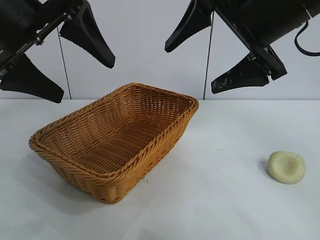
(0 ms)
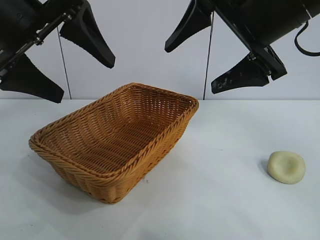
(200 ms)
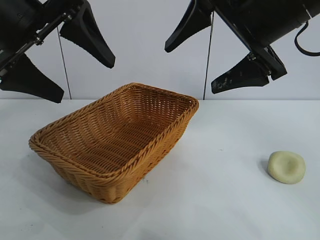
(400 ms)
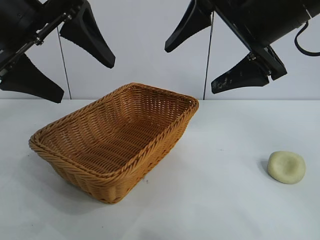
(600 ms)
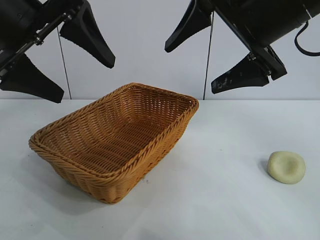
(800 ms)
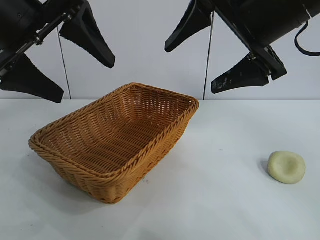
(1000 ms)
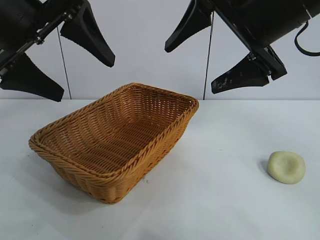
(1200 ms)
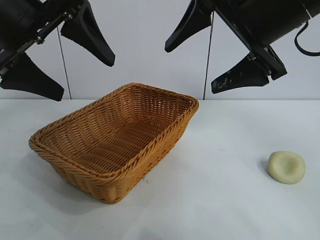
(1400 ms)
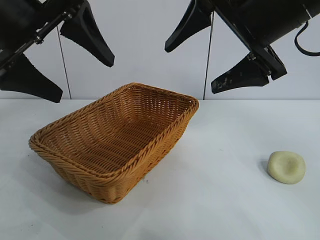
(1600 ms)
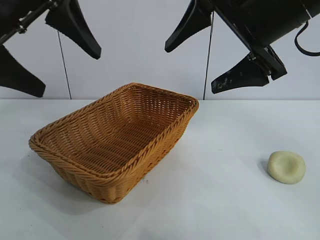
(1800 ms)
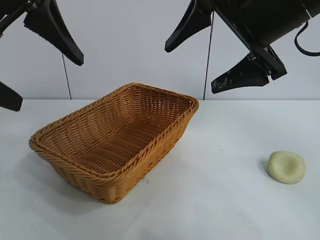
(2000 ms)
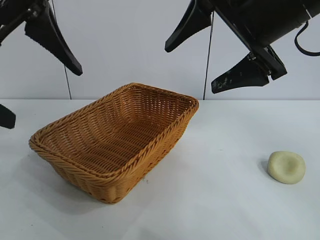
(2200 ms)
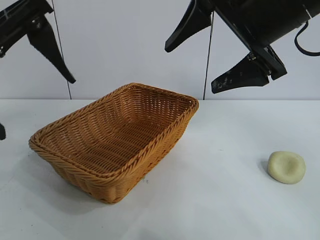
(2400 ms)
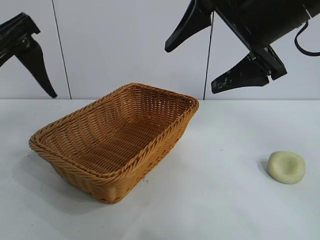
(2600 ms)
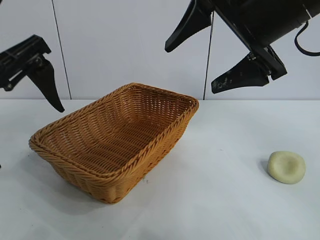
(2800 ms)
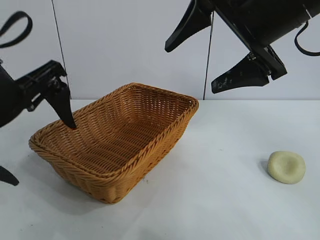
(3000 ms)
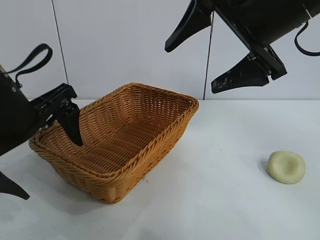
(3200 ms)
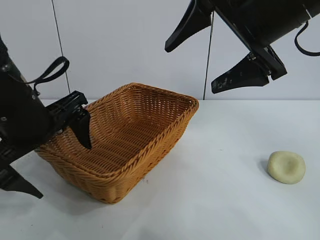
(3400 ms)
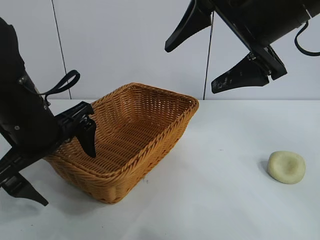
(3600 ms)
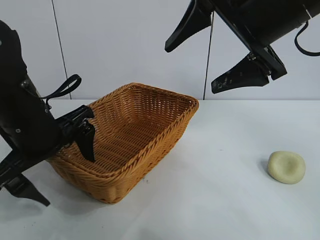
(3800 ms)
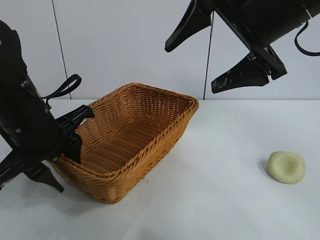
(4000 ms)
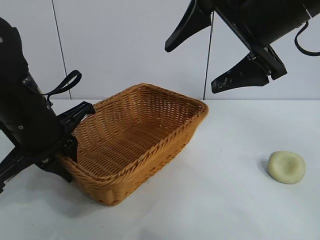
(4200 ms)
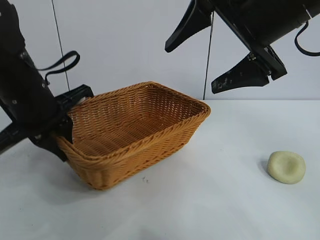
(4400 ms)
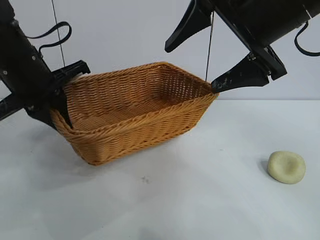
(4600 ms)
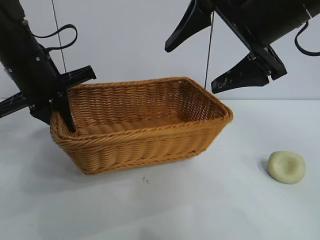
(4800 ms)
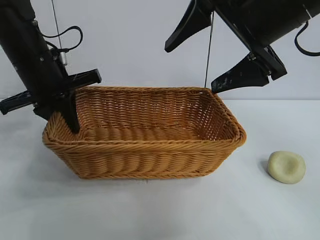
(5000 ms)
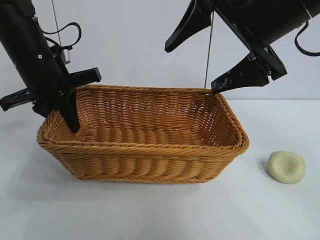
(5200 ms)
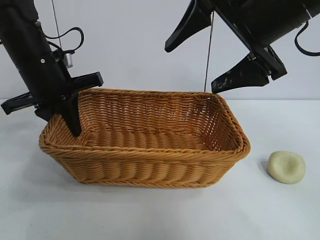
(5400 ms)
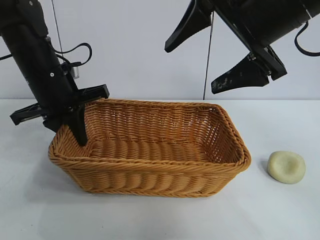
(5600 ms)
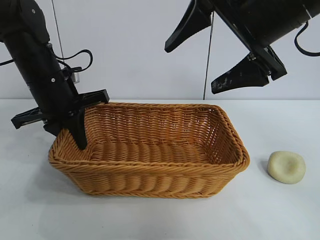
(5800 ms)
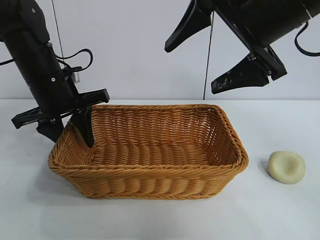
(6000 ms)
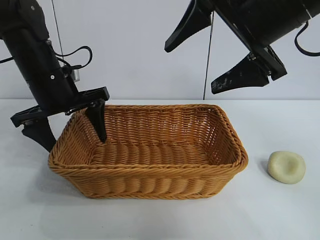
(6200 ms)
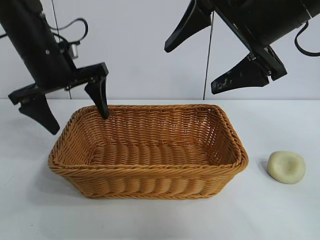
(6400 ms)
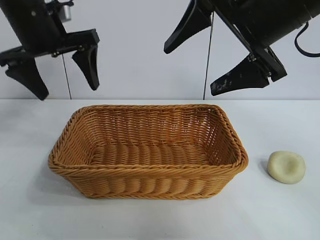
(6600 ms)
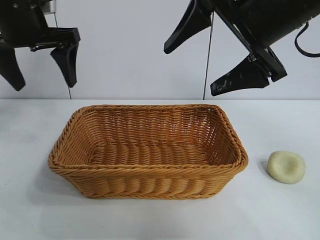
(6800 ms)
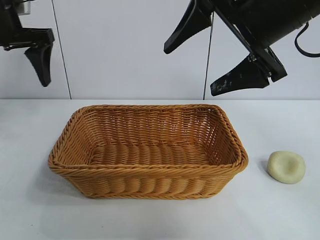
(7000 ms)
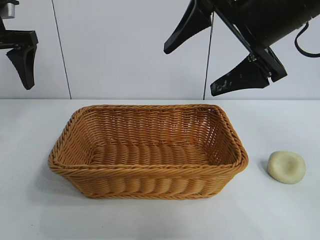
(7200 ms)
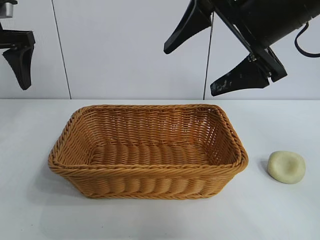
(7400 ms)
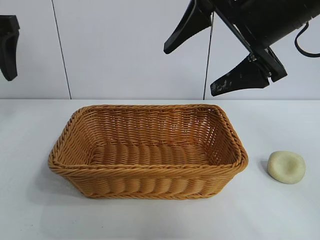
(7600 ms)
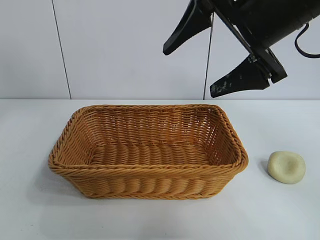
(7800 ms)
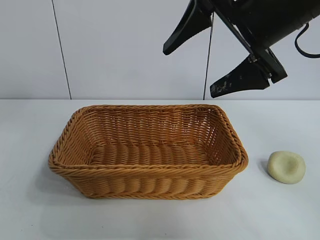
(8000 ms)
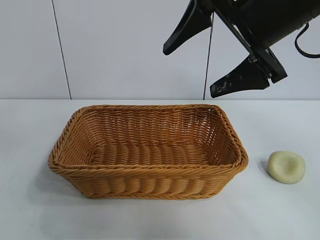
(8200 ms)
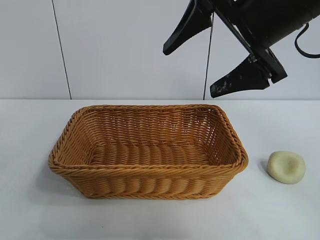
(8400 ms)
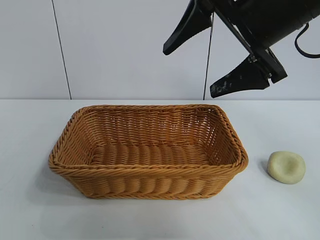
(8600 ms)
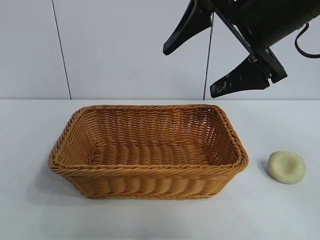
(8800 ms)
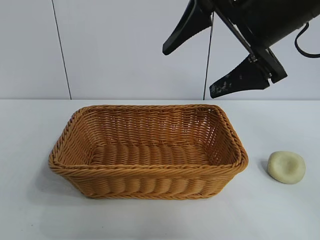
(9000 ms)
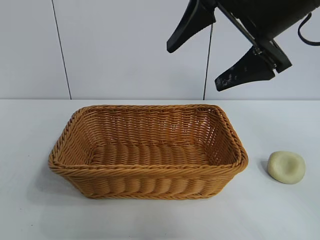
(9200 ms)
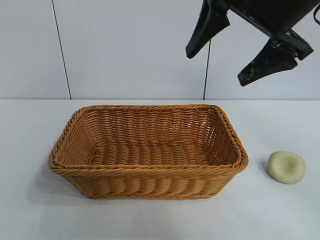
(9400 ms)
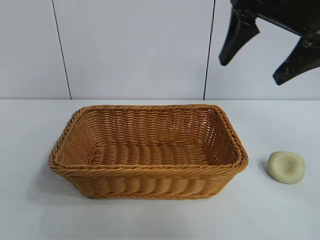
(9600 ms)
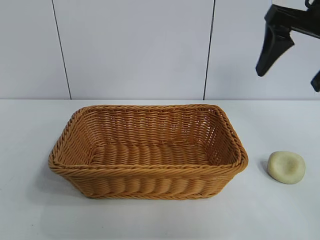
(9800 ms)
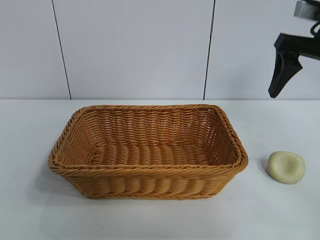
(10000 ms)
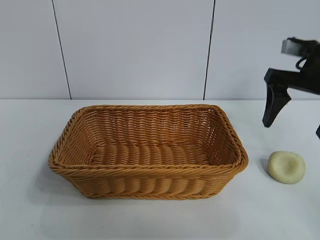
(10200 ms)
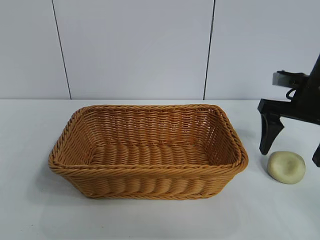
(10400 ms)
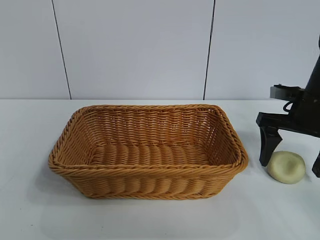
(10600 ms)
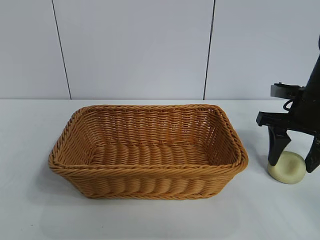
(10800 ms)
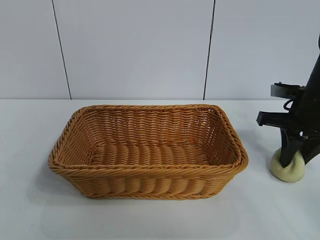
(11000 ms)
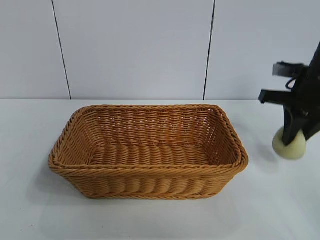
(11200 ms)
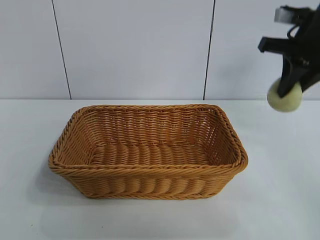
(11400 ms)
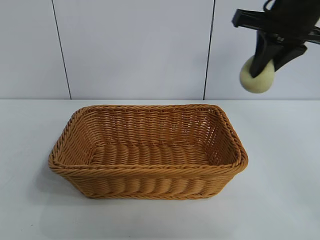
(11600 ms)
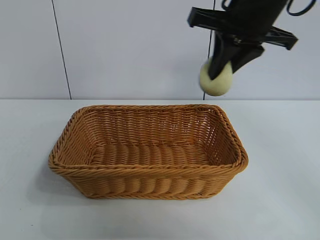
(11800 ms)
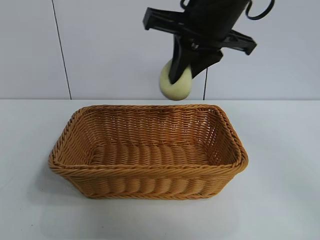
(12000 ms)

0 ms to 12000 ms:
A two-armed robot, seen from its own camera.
Task of the whole recording: pick up the egg yolk pastry and put it into the basket.
Step, 1200 ms to 4000 ms: Grasp the basket with left gripper.
Step, 4200 ms to 6000 ms: Place the basket in the center of view with left gripper.
Step, 6200 ms to 11000 ms: Grasp egg yolk pastry with right gripper.

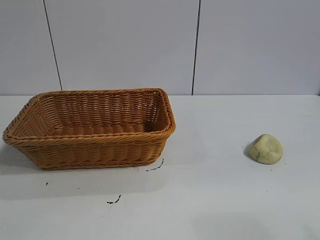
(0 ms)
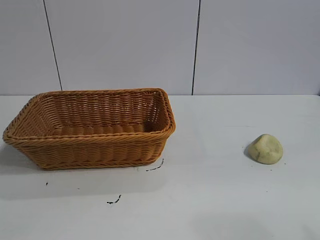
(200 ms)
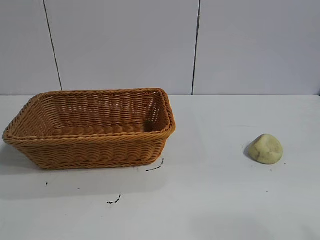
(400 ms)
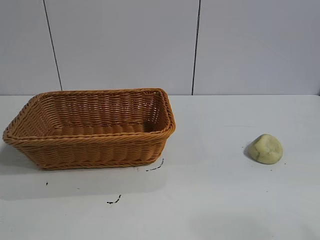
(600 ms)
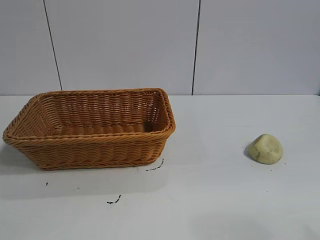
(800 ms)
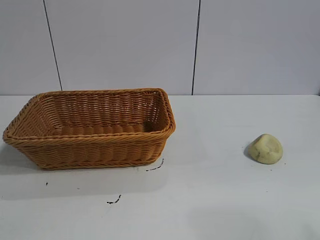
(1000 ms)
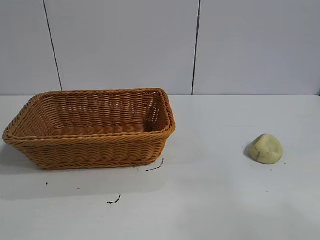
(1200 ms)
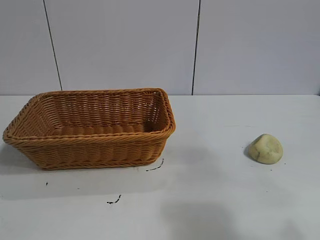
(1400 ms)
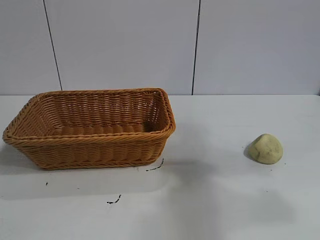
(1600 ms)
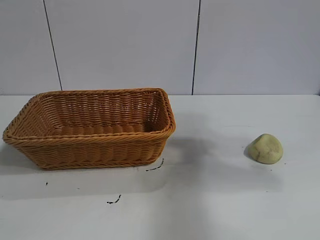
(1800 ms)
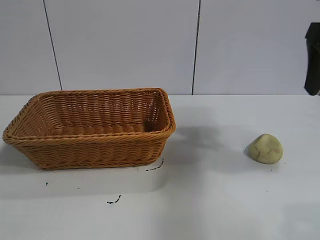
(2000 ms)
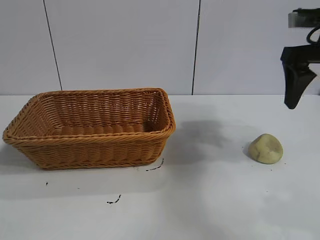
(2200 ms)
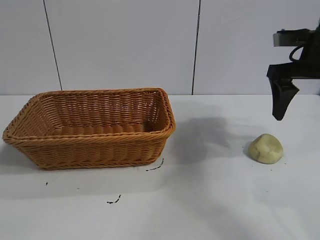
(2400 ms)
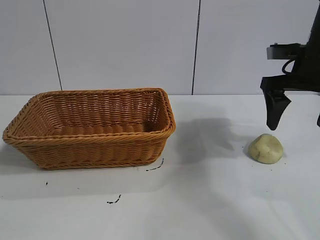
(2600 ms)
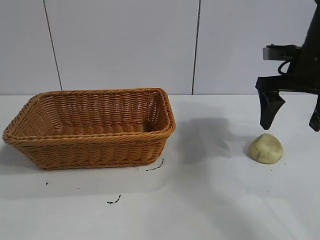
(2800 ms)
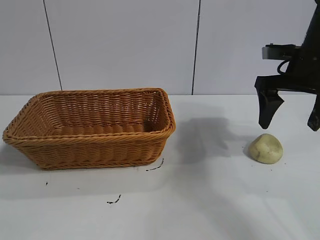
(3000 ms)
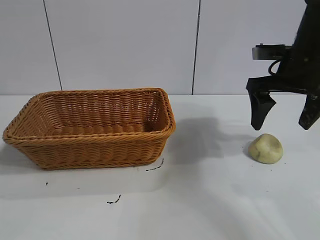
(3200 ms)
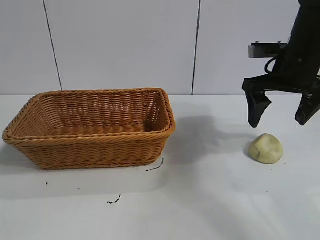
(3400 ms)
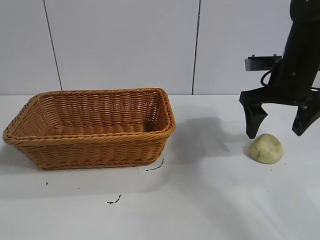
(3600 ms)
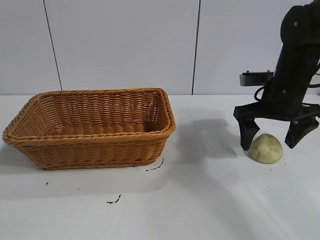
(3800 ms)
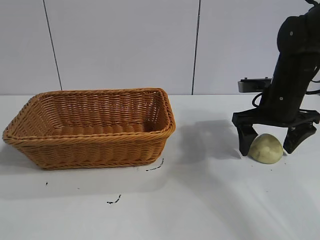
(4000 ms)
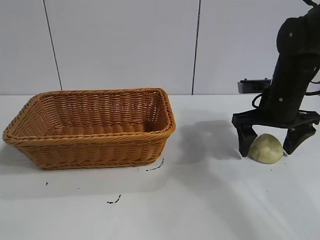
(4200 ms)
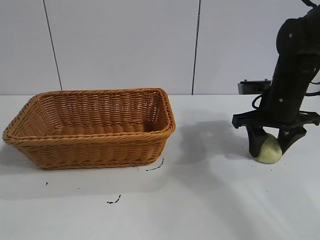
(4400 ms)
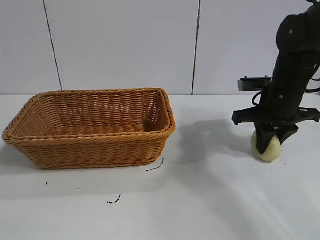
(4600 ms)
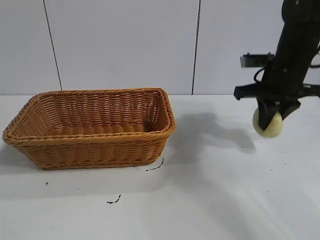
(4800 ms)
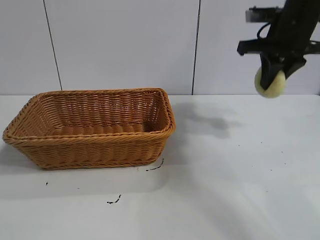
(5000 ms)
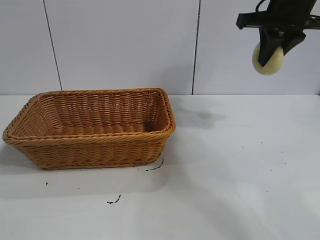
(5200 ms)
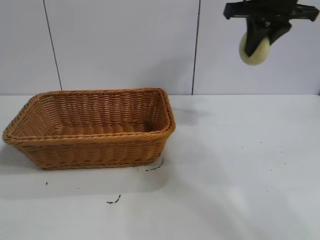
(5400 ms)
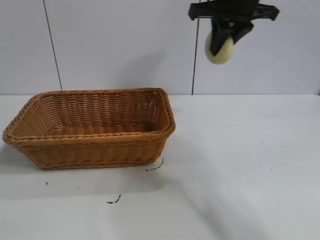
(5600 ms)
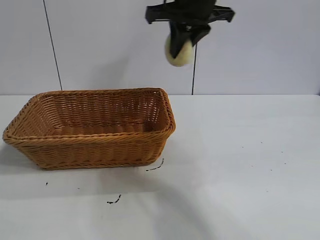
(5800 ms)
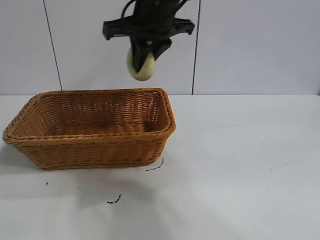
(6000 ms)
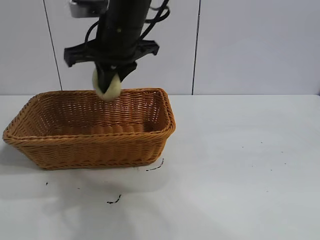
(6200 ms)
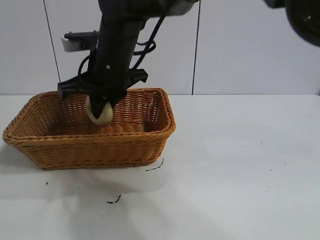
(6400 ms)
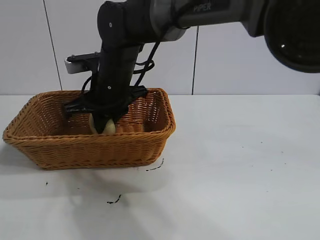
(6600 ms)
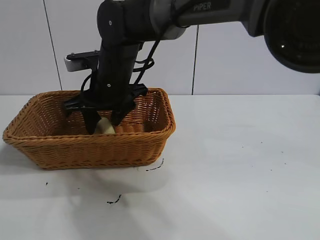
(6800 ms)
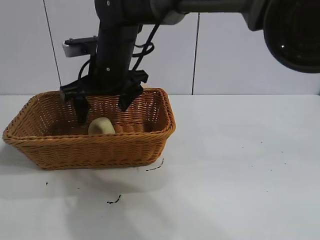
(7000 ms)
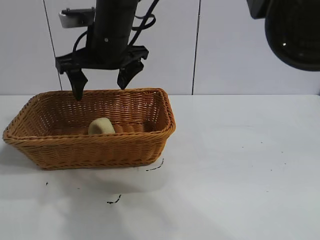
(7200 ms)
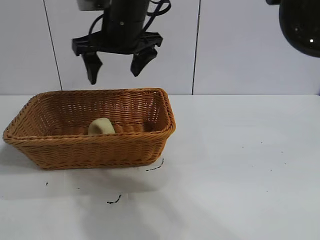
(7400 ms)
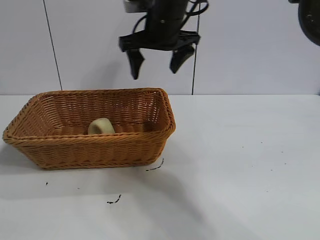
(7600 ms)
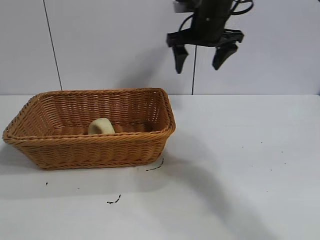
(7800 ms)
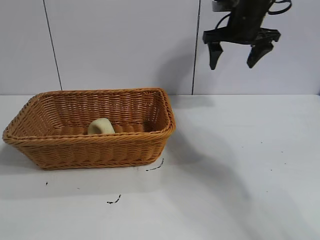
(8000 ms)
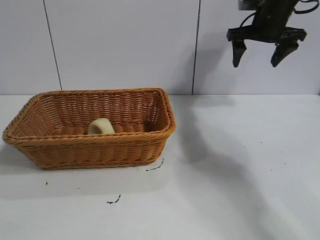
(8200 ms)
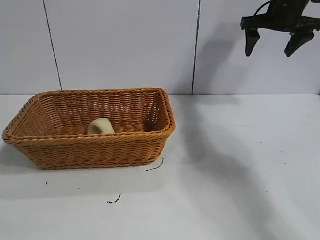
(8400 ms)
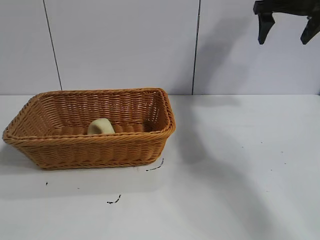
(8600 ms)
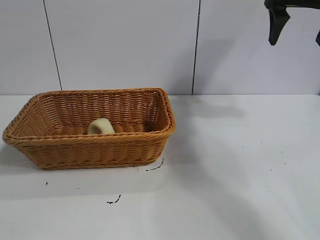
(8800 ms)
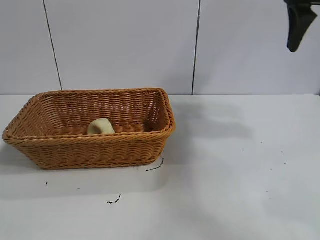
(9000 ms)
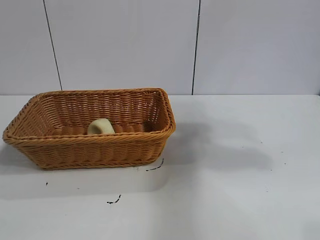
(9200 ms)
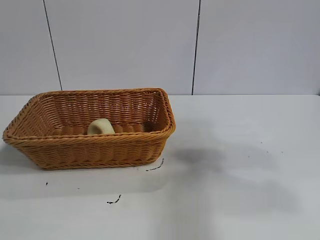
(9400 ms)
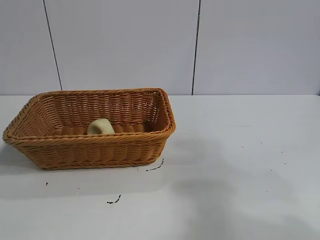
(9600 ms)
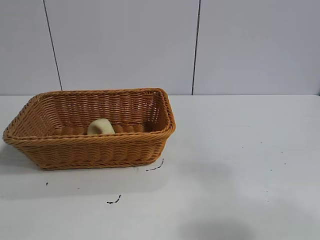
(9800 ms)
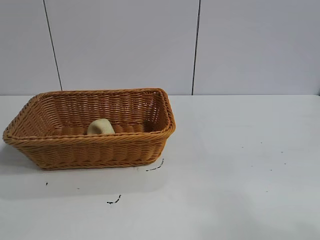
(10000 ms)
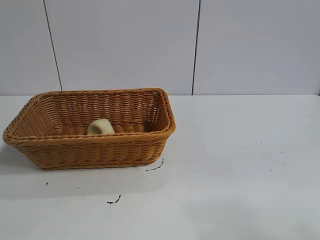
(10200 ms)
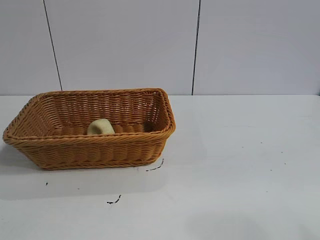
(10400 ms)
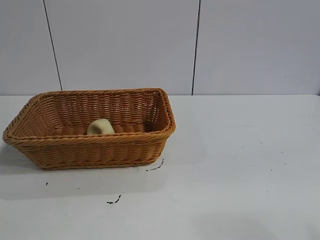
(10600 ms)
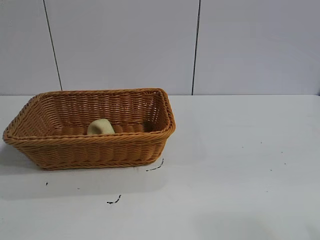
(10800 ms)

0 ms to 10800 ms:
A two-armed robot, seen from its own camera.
Task of the whole recording: pick up the egg yolk pastry and put it into the basket.
Step, 800 ms to 4400 ms: Grasp egg yolk pastry with right gripper.
Step, 4600 ms to 7000 ms: Place the egg yolk pastry in the basket with right gripper.
